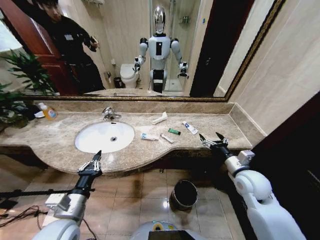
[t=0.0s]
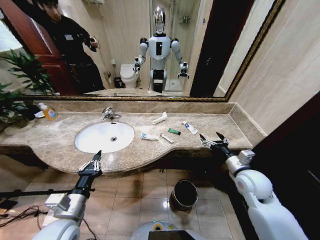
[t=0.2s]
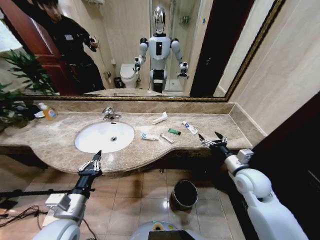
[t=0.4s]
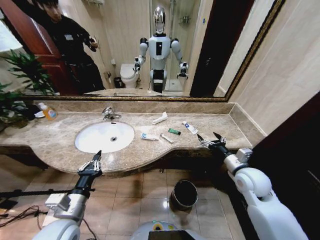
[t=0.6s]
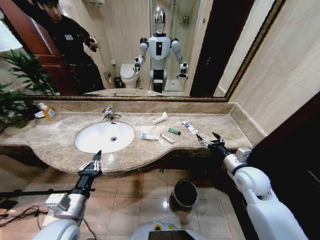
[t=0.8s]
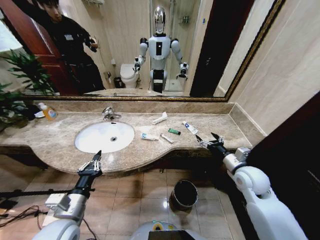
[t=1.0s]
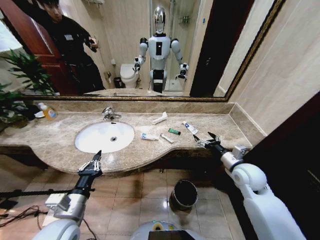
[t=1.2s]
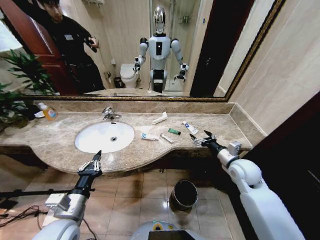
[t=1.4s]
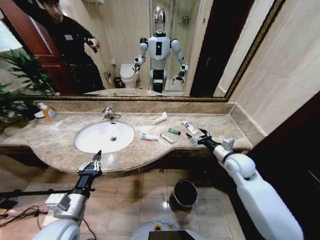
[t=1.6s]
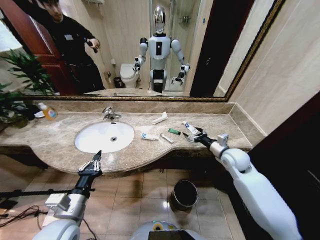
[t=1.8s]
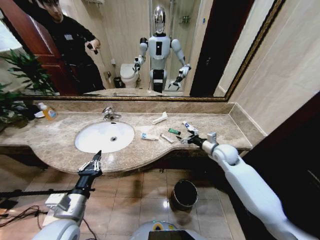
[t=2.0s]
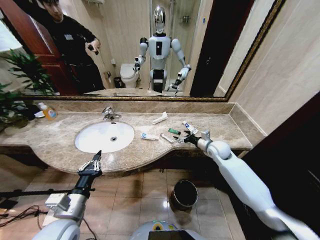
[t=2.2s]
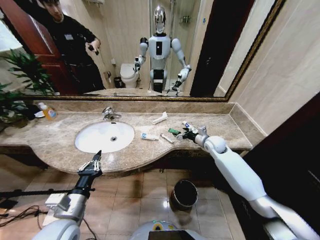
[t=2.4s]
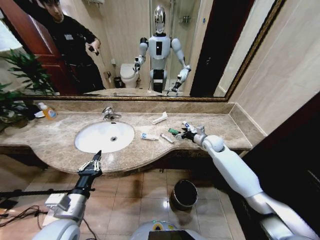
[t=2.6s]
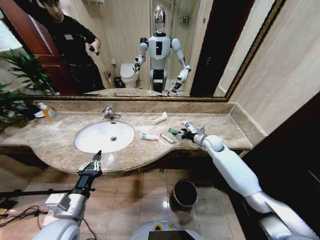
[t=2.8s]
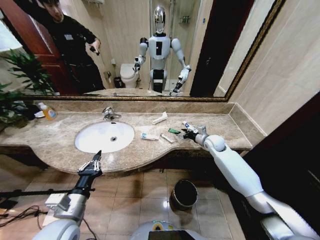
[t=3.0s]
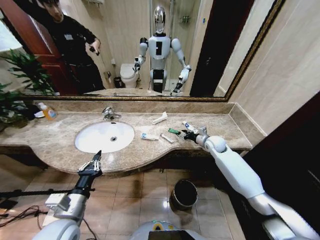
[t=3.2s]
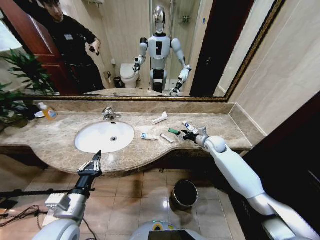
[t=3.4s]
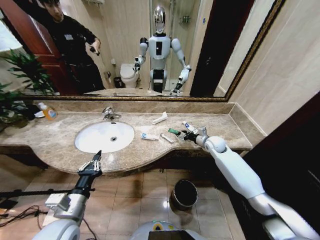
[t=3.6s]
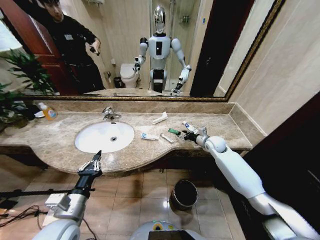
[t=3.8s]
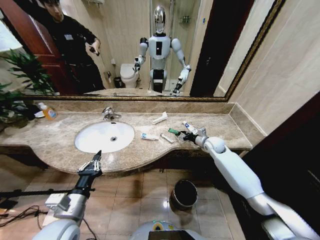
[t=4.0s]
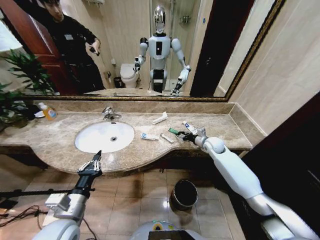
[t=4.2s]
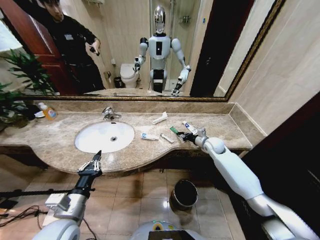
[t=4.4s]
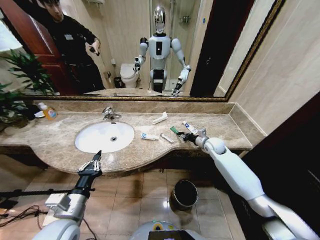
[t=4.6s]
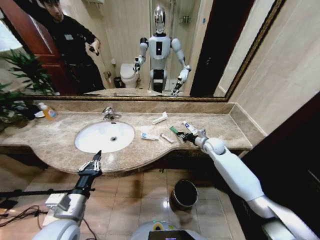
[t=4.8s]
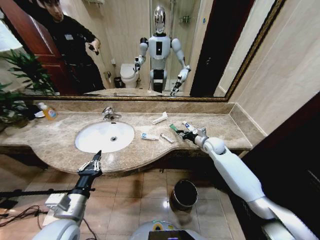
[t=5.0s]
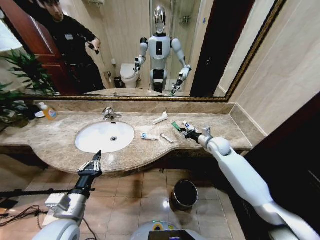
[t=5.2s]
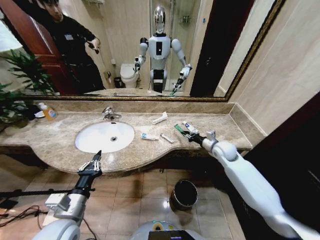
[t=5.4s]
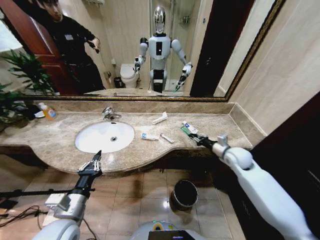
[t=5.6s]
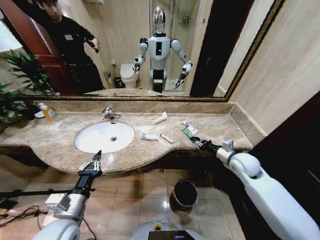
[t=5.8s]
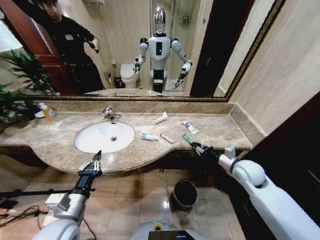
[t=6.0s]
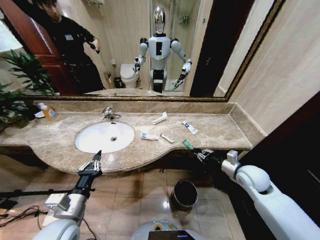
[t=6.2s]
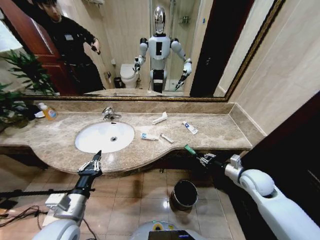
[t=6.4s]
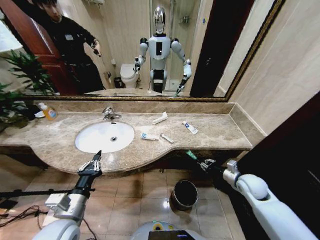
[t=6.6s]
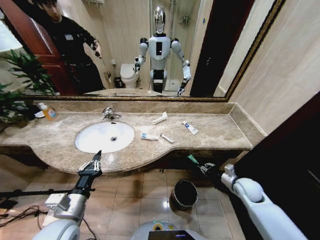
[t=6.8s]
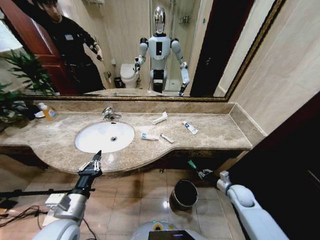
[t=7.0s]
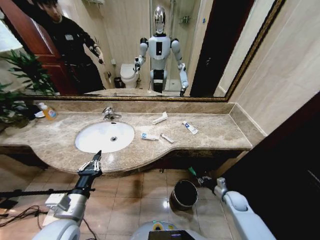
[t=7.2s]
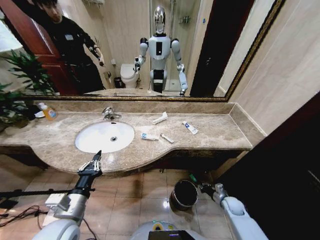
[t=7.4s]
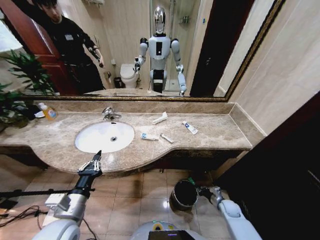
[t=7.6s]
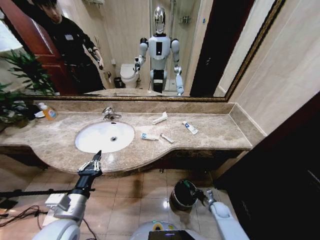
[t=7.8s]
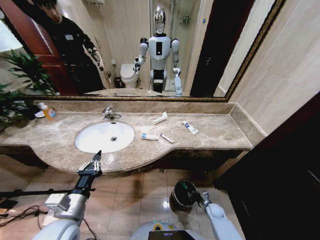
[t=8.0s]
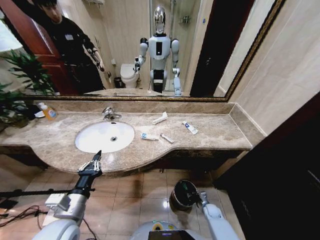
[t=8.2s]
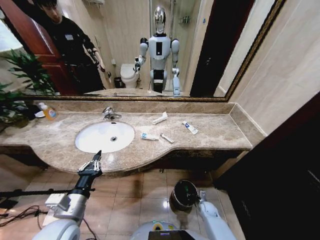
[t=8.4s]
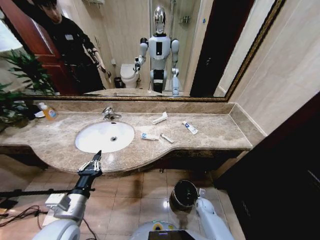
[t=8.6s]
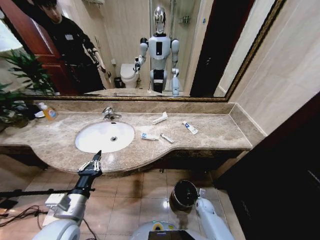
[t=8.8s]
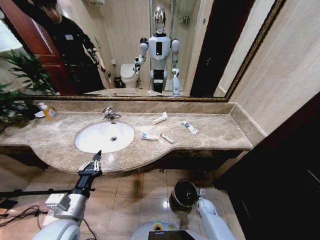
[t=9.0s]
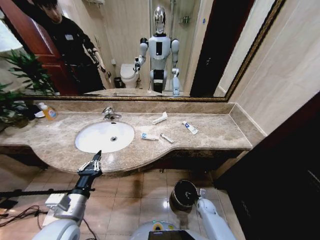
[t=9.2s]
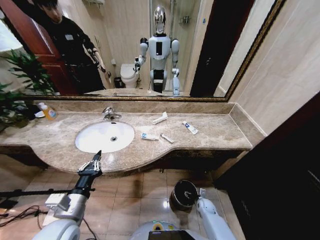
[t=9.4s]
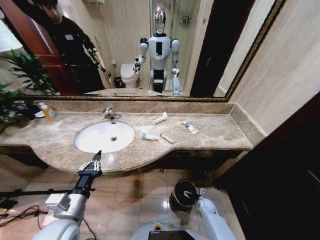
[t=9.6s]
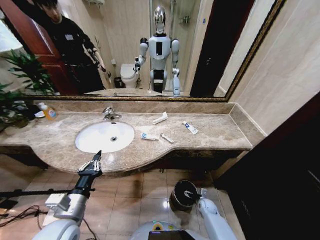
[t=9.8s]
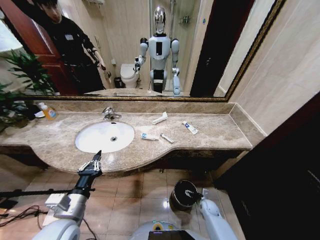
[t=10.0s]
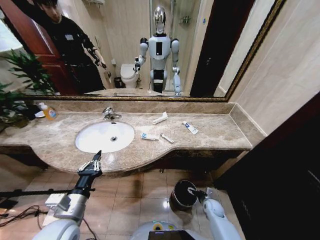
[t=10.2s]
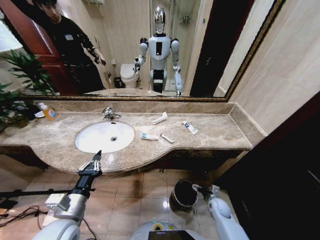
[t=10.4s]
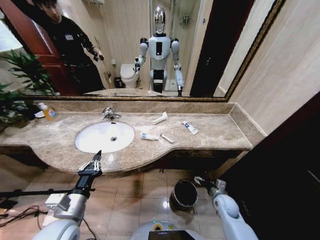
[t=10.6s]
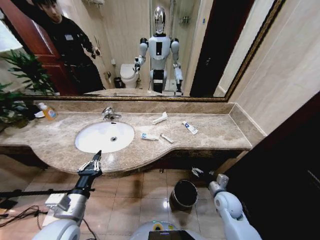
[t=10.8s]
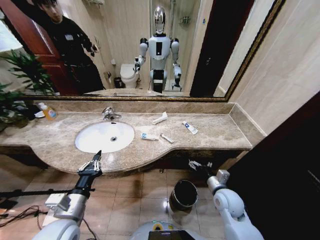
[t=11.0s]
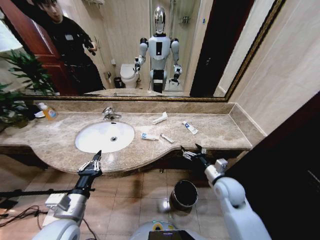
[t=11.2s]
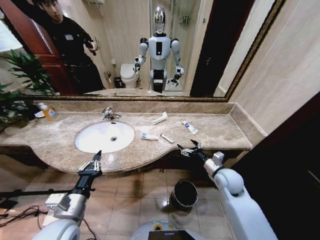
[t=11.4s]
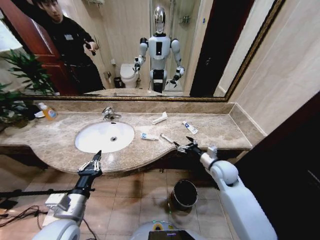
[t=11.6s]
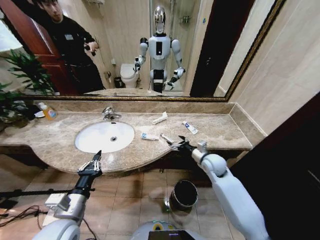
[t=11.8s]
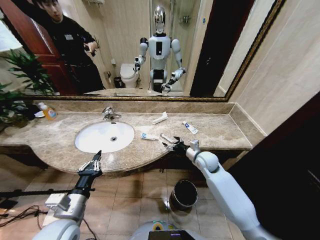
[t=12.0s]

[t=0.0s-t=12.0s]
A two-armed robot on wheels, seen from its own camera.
Task of the whole recording: Pick up the trash from the sink and place it in the trash bin.
t=1.6s to t=3.0s: The right gripper heads forward, covering roughly 15 cm.
t=3.0s to t=4.4s: The right gripper closes.
t=4.4s to t=6.0s: The right gripper is displaced backward by approximately 15 cm.
t=6.0s to t=7.6s: The right gripper is displaced downward by about 30 cm.
t=7.6s to t=9.0s: The right gripper is displaced to the left and downward by roughly 10 cm.
t=9.0s to t=10.4s: The right gripper goes approximately 10 cm upward, and opens up.
t=10.4s to t=12.0s: The right gripper travels upward and forward by roughly 30 cm.

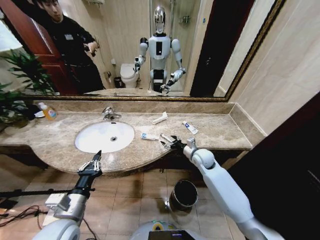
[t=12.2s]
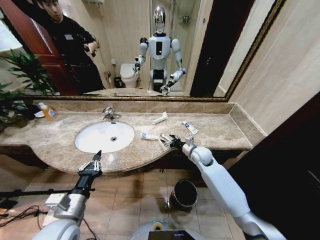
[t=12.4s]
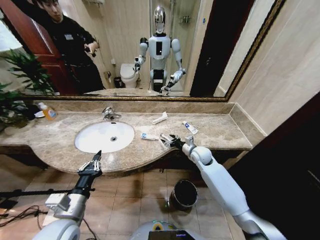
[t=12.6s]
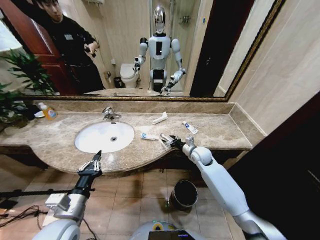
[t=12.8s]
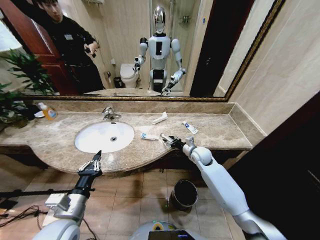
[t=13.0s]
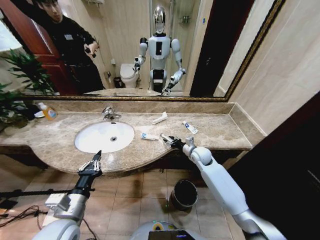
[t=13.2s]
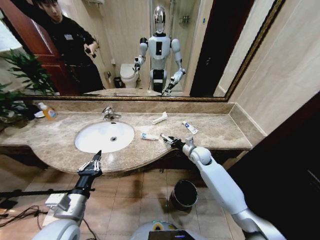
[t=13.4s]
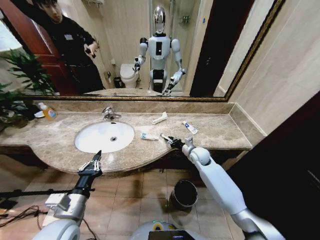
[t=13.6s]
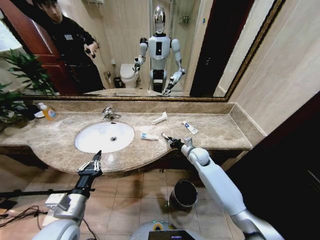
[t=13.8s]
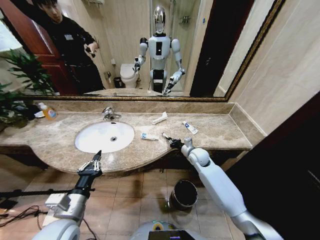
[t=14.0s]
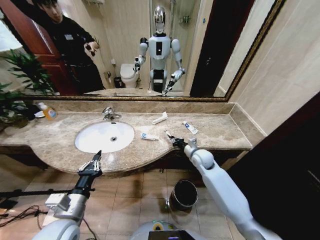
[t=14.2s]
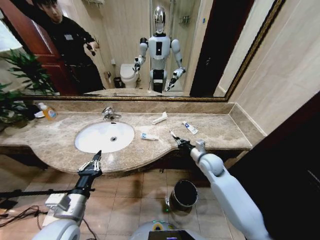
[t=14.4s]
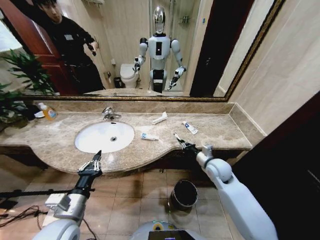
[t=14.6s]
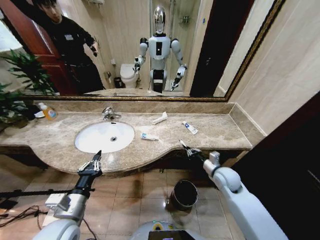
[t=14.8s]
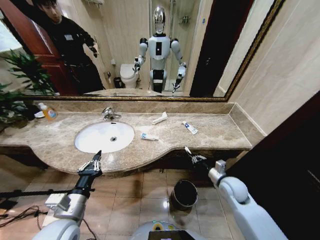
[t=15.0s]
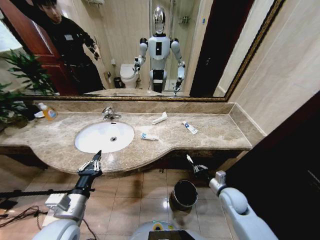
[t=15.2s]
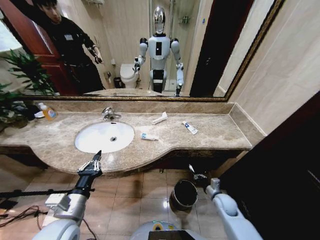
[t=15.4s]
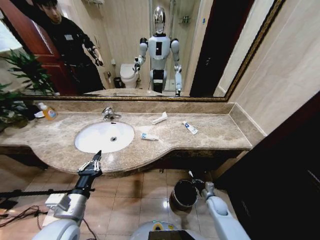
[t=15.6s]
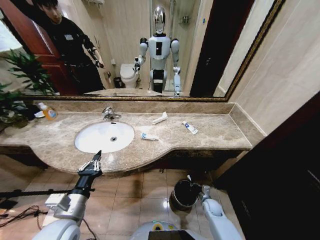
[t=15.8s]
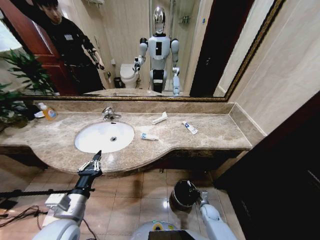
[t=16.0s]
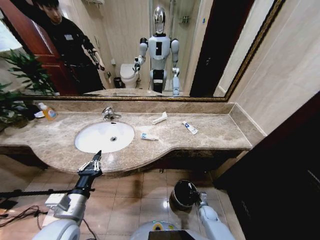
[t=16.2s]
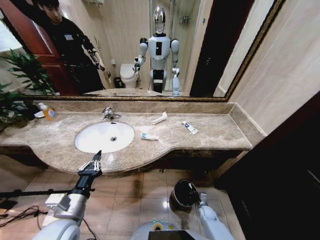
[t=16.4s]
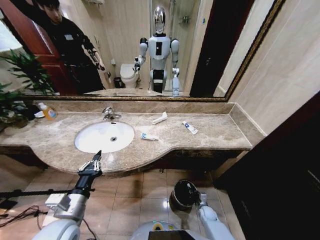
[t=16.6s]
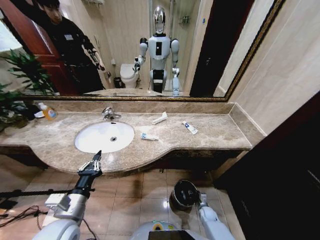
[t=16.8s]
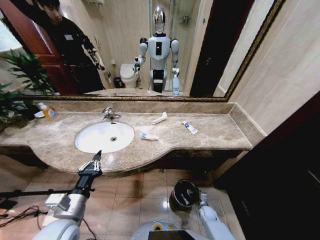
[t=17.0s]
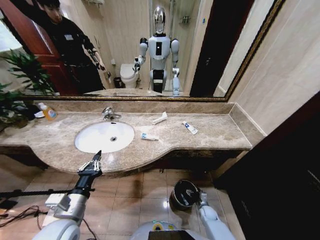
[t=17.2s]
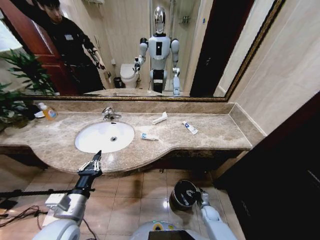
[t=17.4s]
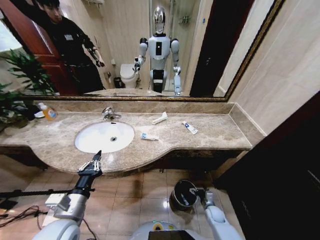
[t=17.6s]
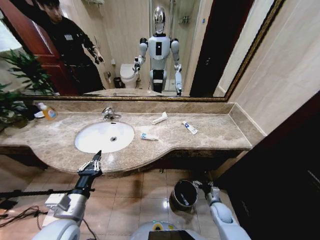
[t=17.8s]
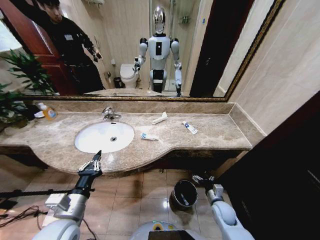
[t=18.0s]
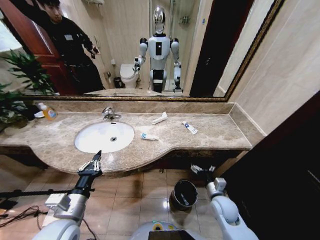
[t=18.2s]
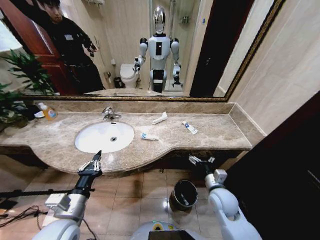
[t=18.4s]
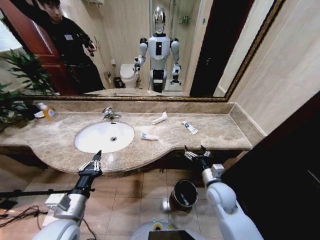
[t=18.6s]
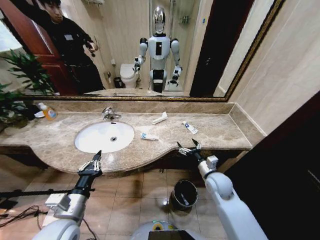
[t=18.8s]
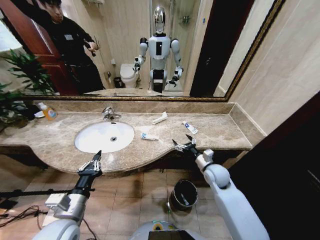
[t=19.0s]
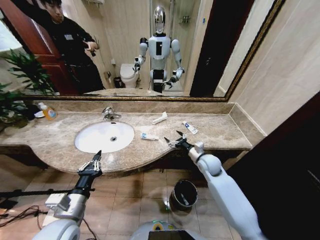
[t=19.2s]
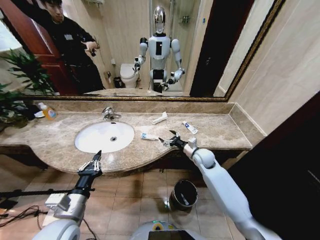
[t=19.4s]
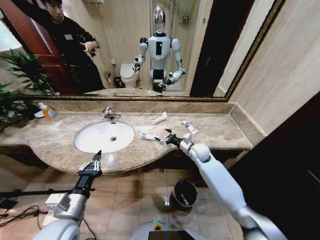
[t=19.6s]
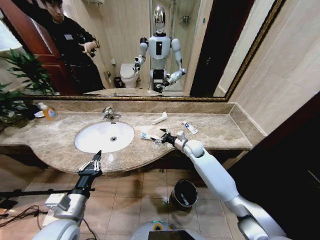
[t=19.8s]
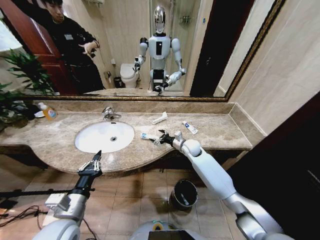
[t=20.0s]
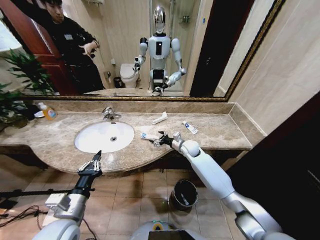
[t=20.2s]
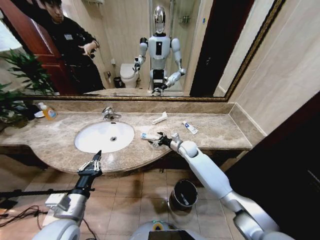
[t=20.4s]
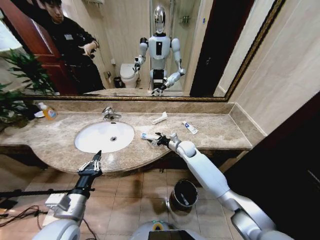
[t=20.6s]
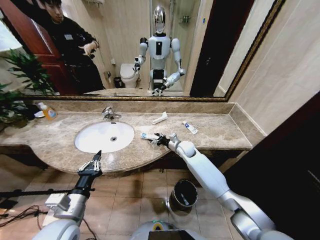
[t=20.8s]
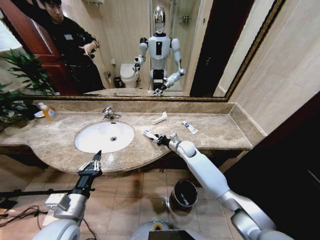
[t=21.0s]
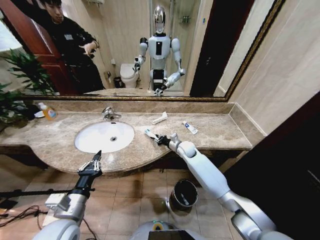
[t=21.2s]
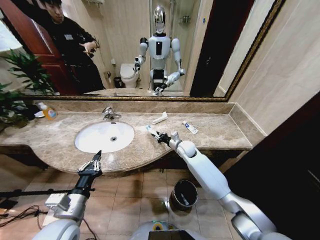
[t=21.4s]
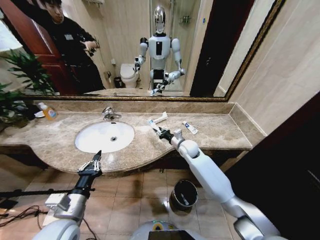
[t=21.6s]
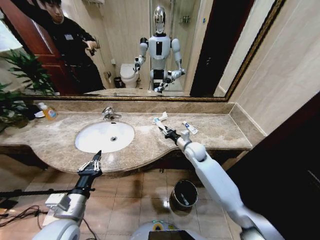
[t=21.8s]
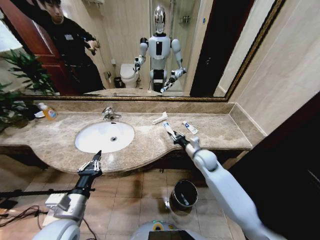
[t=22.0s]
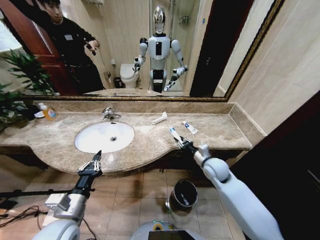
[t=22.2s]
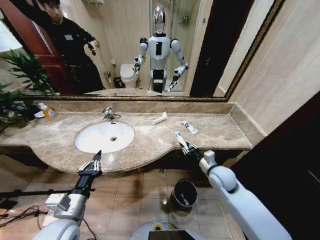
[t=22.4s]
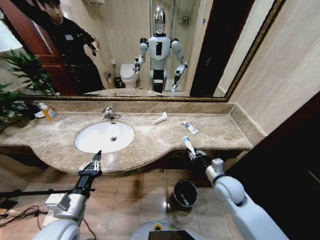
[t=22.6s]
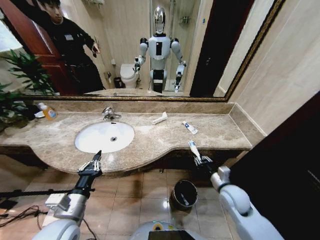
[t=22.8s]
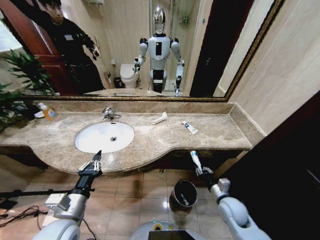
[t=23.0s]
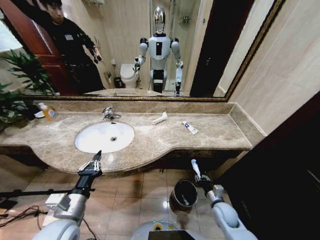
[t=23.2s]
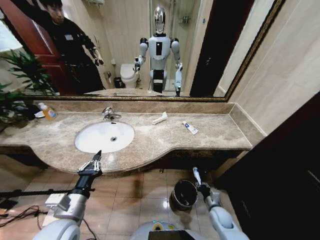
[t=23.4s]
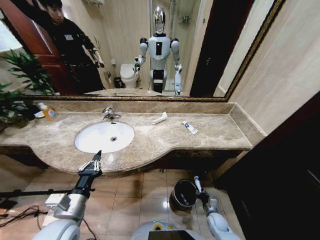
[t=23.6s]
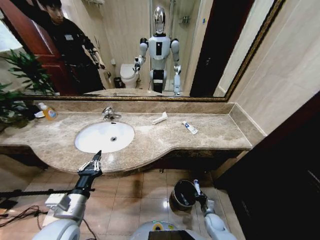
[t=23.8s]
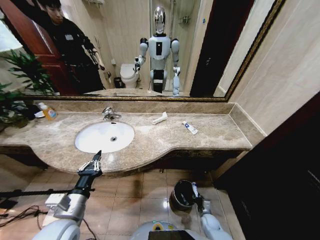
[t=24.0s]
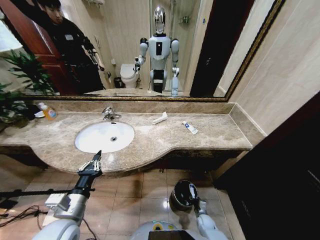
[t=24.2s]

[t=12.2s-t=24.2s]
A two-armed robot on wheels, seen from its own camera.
Task of the whole recording: Pick up the trash from the sink and place it in the trash bin.
t=12.2s to t=13.8s: The right gripper closes its fingers.
t=13.8s to t=15.2s: The right gripper heads backward and to the right, covering roughly 20 cm.
t=15.2s to t=16.6s: The right gripper moves downward, approximately 30 cm.
t=16.6s to t=18.2s: The right gripper shifts roughly 25 cm upward, and opens up.
t=18.2s to t=19.8s: The right gripper is displaced forward and upward by about 25 cm.
t=19.8s to t=21.2s: The right gripper closes.
t=21.2s to t=22.6s: The right gripper is displaced backward and to the right by roughly 25 cm.
t=22.6s to t=24.2s: The right gripper travels downward by roughly 35 cm.
